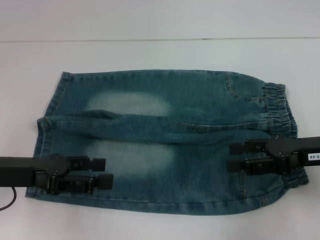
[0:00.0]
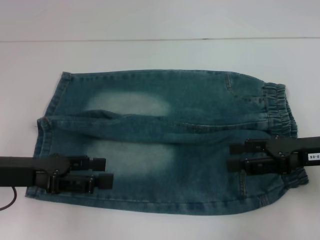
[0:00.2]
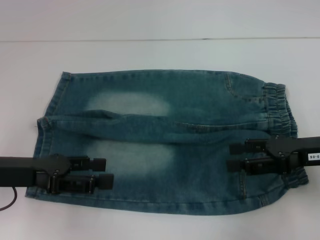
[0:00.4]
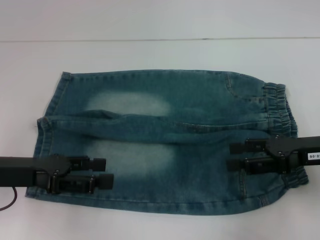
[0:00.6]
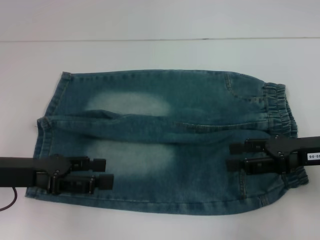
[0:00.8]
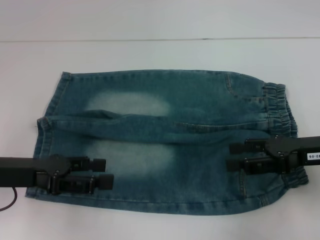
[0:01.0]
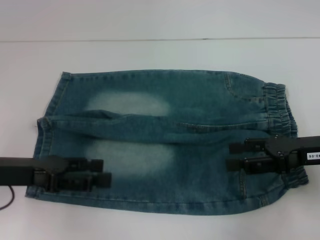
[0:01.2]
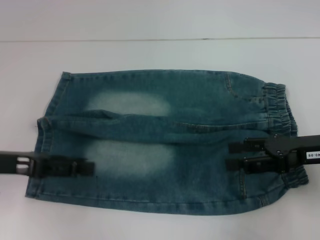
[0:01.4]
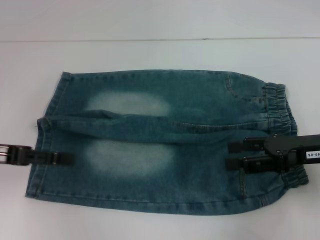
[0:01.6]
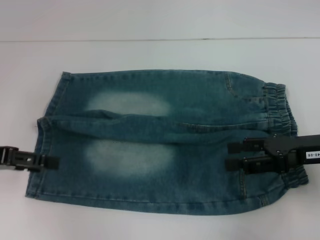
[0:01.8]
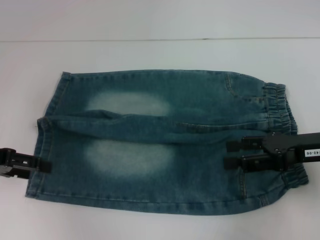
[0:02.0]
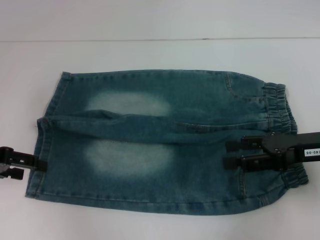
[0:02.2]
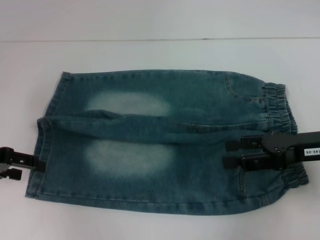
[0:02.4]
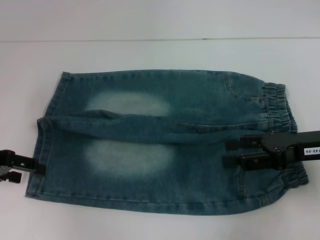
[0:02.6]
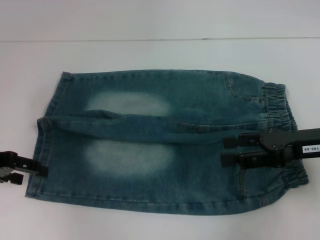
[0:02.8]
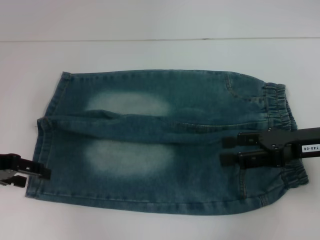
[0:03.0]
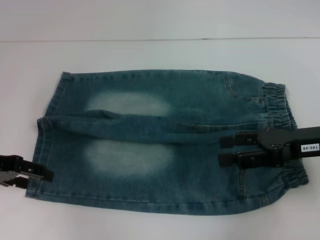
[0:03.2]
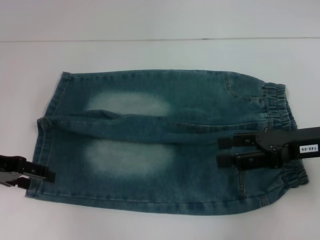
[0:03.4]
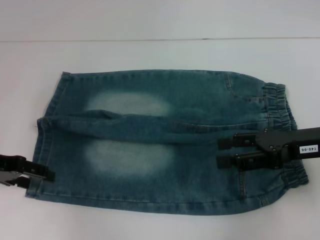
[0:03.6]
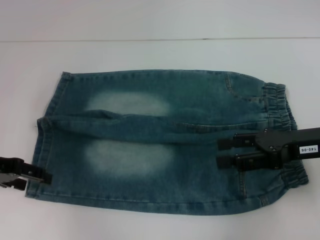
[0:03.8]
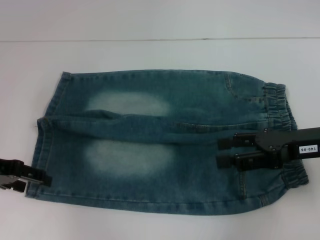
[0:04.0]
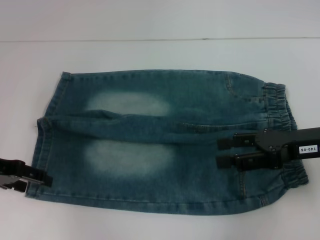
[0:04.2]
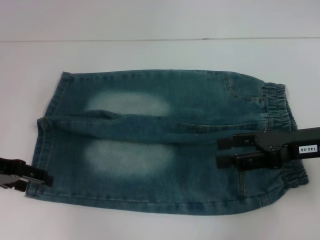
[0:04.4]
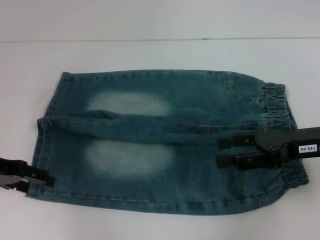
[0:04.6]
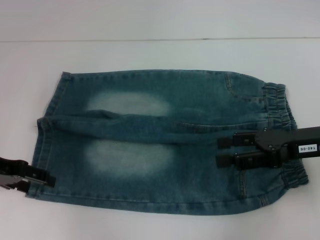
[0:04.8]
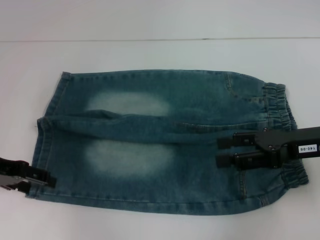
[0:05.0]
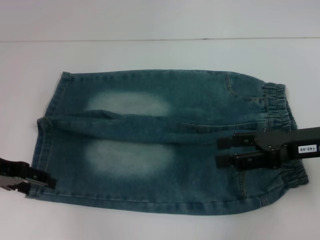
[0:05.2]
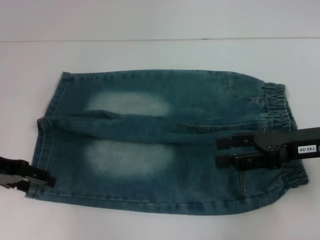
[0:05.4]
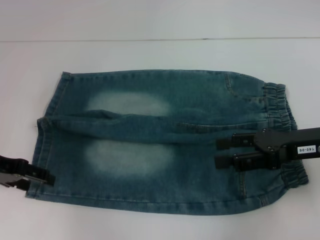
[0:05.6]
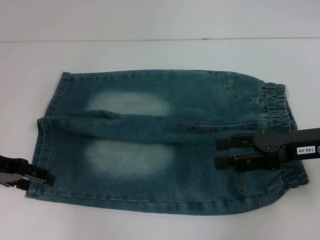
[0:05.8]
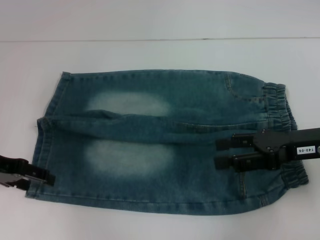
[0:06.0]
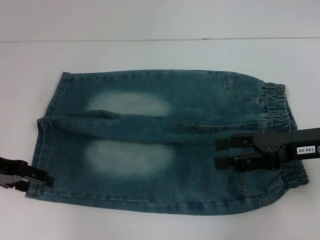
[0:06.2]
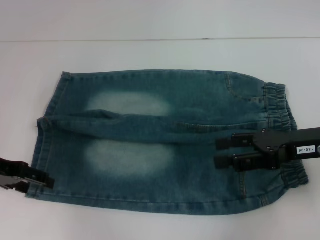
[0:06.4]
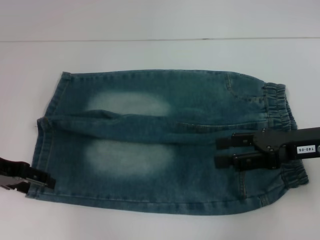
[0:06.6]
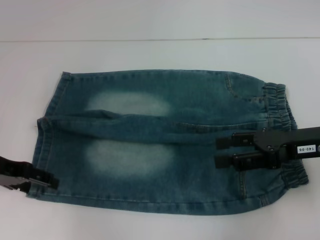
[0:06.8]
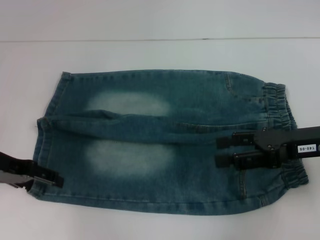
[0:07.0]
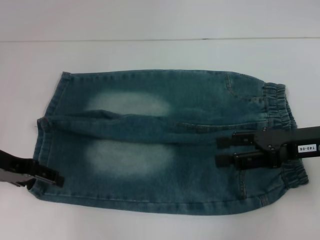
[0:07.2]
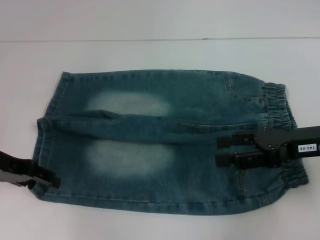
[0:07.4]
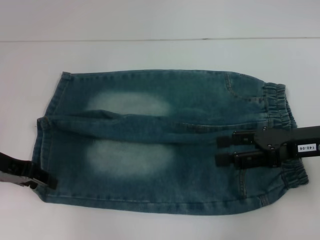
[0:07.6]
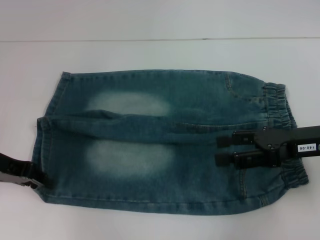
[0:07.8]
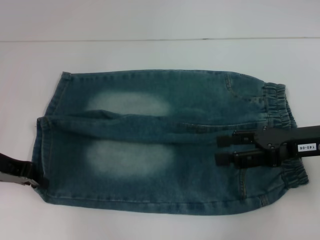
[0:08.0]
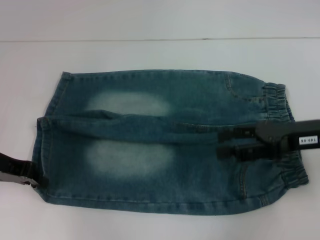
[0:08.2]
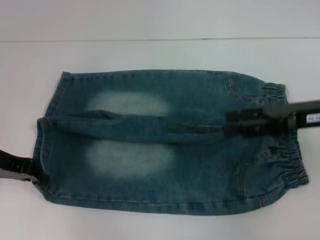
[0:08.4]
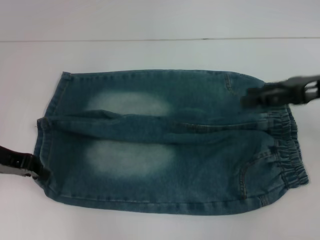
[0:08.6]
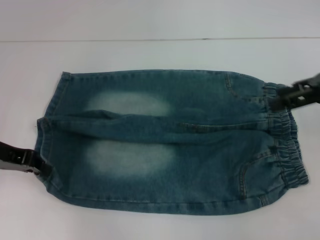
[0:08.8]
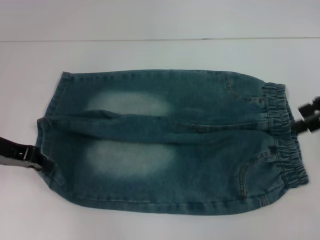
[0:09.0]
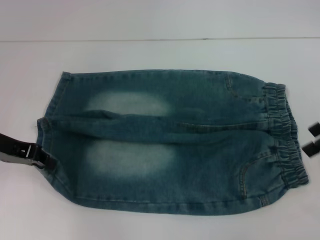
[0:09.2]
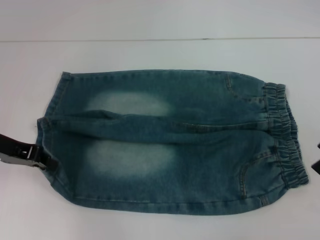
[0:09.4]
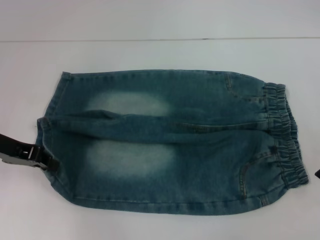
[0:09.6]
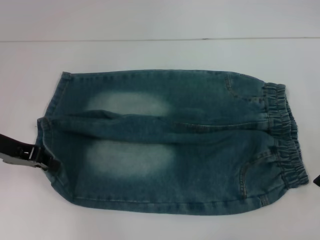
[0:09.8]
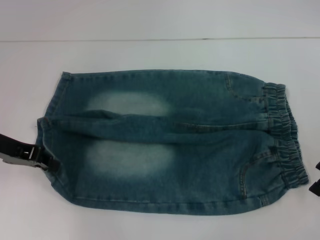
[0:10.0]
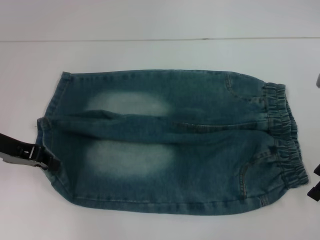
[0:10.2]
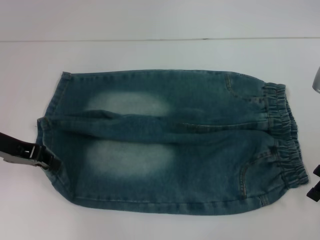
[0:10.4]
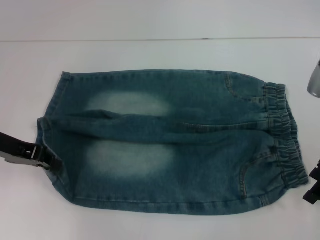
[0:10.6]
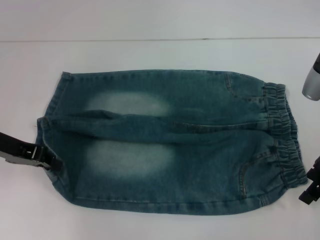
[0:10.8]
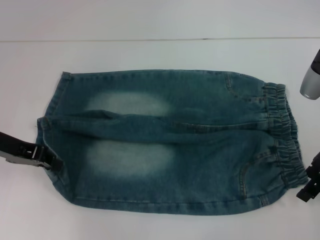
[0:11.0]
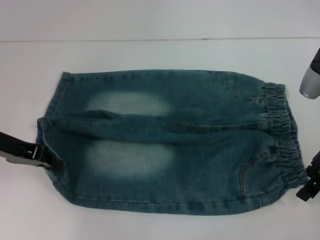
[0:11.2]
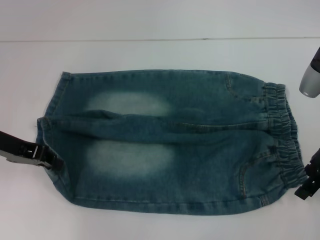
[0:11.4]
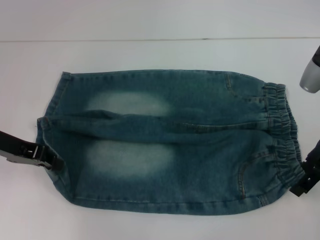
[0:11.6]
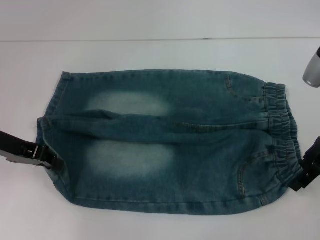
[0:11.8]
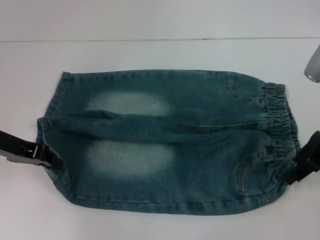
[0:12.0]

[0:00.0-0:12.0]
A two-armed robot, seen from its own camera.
Step, 0:00.0 to 0:07.6: Grab the lower left pant leg with your left hand.
Step, 0:07.8 to 0:11.6: Hold the lower right waistband with your right hand.
0:00.0 to 0:01.6: The left gripper ends up approximately 5 cm from where it was.
0:03.0 to 0:04.4: Neither gripper changes place.
0:04.4 to 0:06.0: The two grippers keep their place.
0:06.0 to 0:07.6: The grippers move only a little.
0:07.6 to 0:09.0: The right gripper heads upward, to the right and forward, covering roughly 15 cm. The left gripper closes up.
0:09.0 to 0:10.4: The right gripper is displaced downward by approximately 5 cm.
0:10.4 to 0:12.0: The grippers make only small movements.

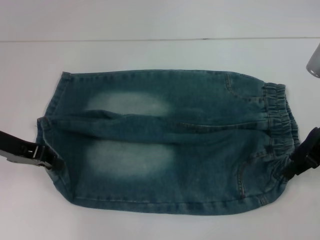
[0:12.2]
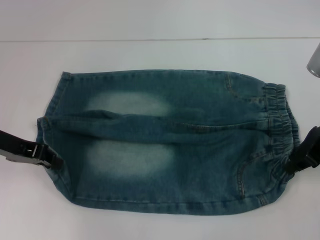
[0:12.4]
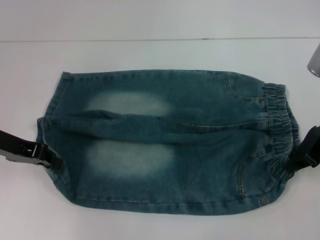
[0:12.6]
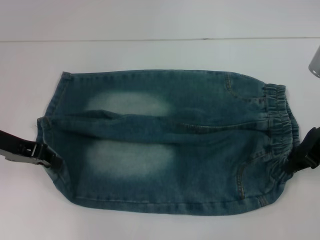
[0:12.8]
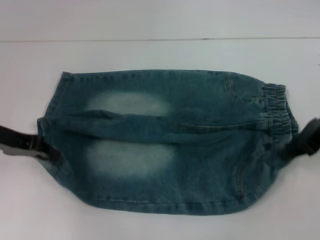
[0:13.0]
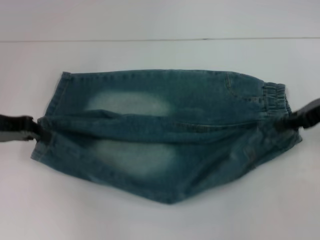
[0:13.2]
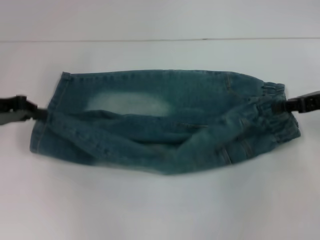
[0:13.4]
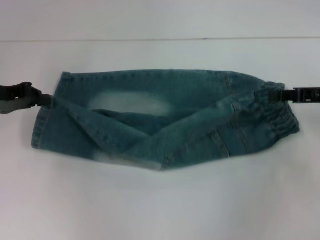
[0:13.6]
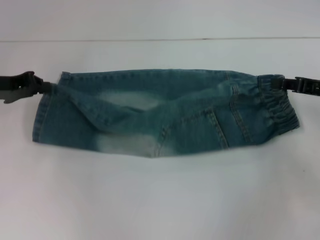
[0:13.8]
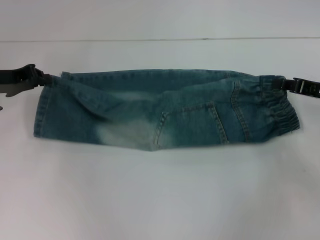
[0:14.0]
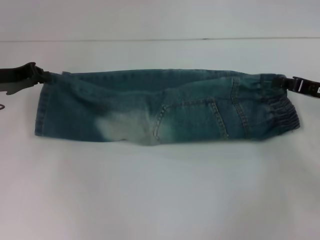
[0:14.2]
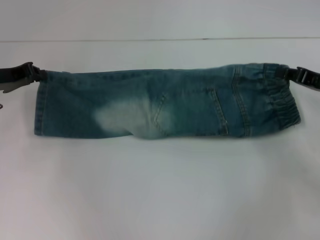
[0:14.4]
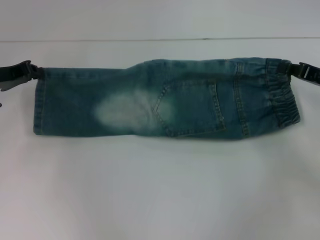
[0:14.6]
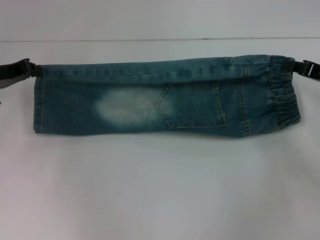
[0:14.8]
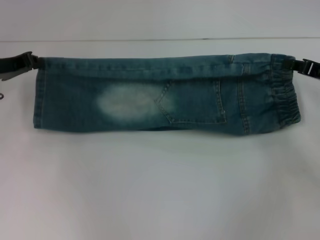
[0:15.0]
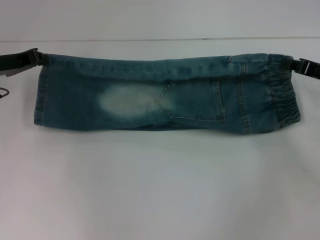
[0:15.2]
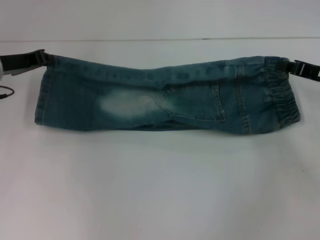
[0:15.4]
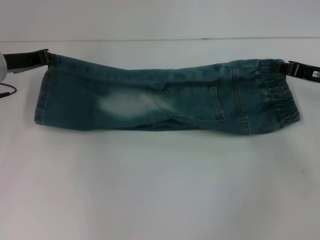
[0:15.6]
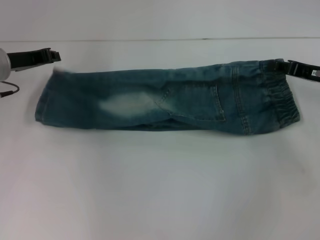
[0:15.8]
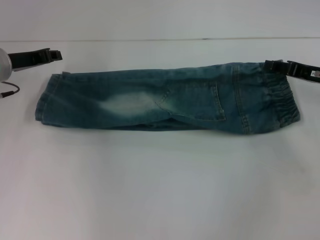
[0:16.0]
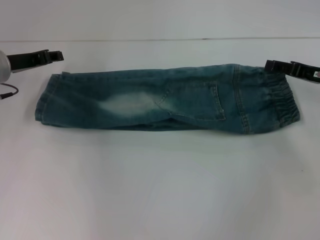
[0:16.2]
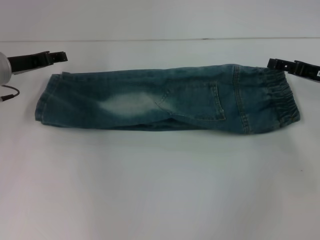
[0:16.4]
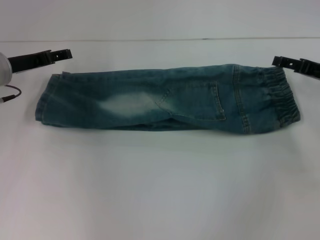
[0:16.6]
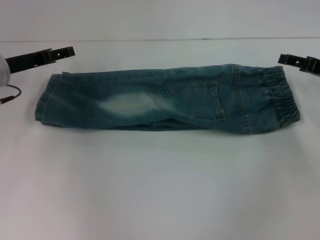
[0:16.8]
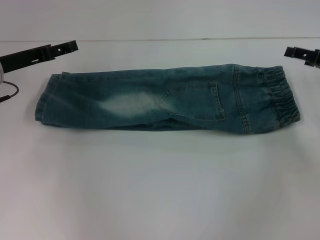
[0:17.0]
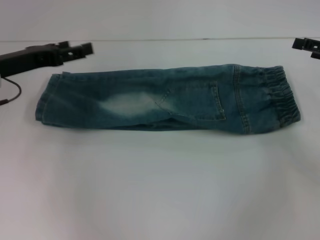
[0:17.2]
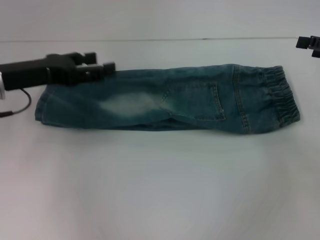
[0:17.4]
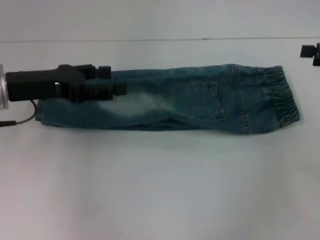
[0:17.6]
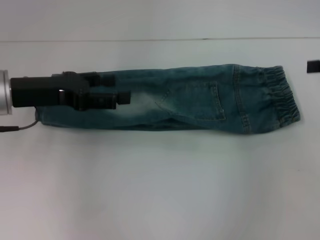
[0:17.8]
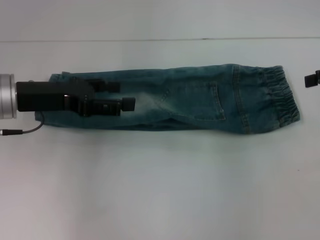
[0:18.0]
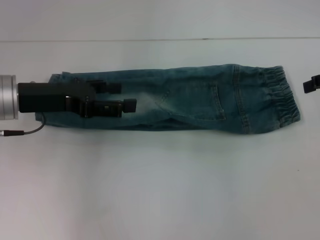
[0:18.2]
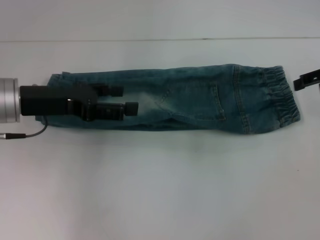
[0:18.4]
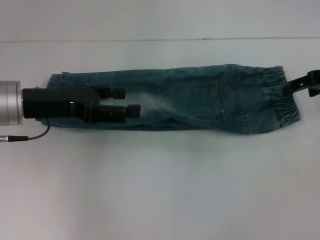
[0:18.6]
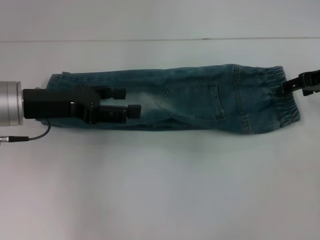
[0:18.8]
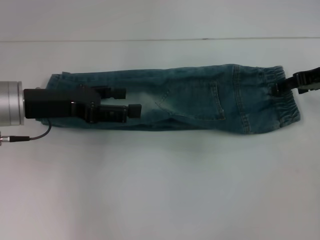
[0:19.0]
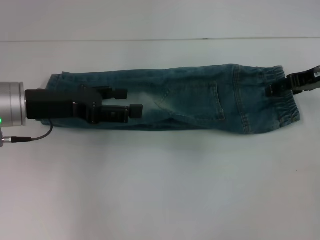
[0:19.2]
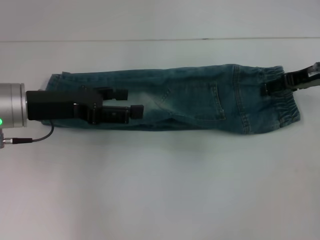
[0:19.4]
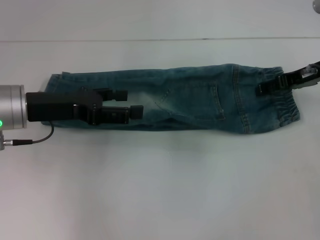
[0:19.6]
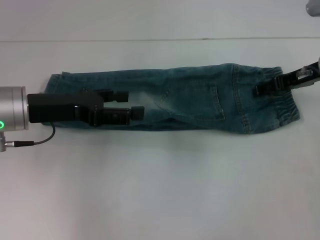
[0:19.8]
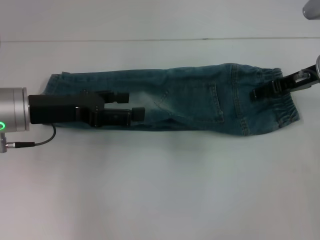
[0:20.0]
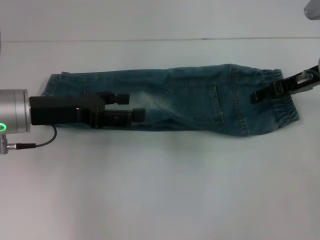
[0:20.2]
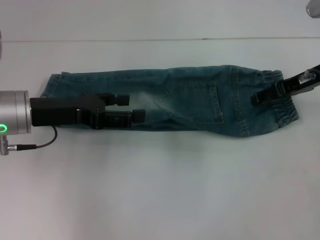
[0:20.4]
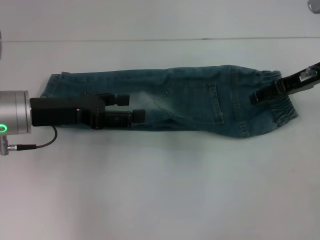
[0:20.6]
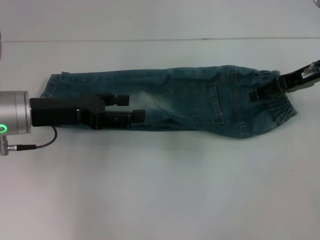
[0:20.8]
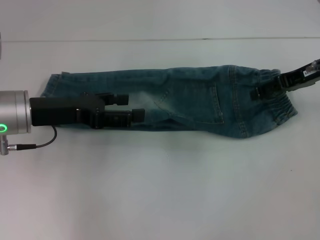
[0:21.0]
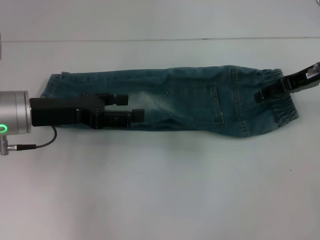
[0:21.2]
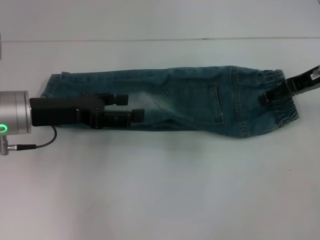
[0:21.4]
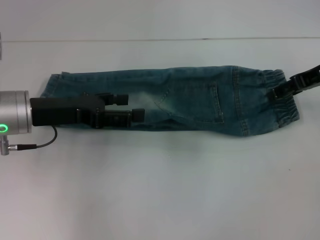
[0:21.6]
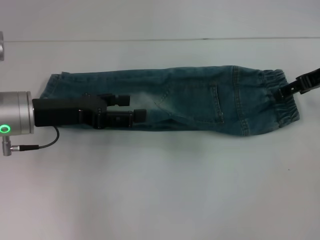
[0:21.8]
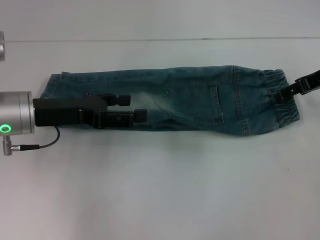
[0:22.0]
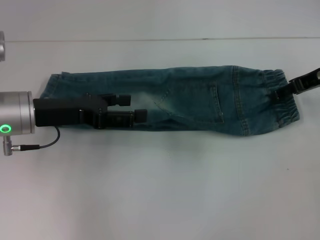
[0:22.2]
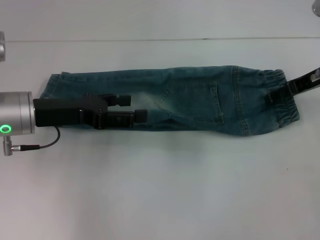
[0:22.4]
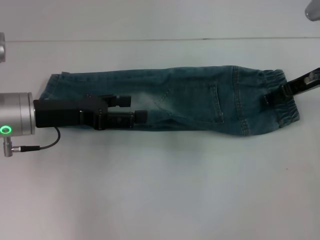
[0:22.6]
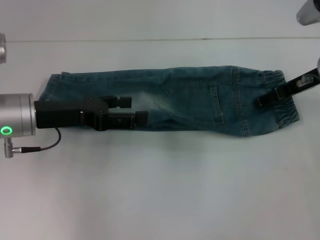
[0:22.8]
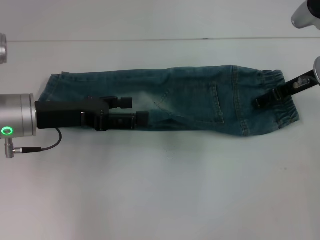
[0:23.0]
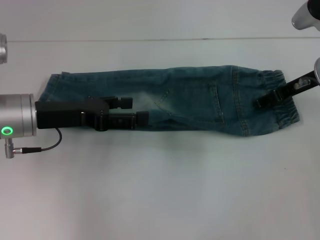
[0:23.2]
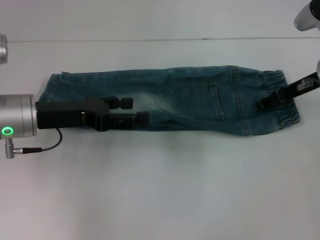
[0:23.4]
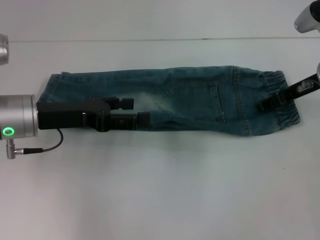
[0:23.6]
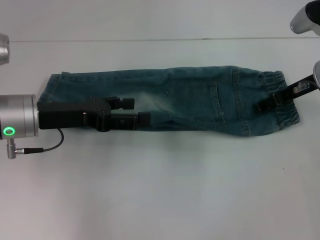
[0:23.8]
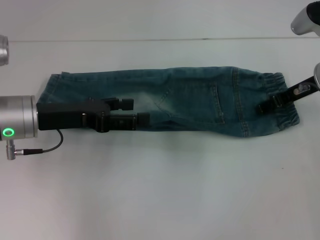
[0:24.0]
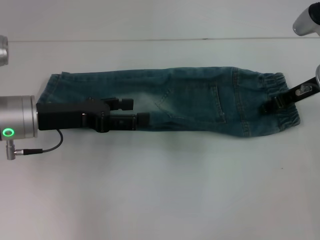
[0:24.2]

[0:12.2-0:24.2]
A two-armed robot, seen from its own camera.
Step, 0:12.2 to 0:16.2: Fold upward with your right hand.
Step, 0:16.4 to 0:24.0: Grab the waistband with your right hand.
0:12.2 to 0:13.8: The left gripper ends up roughly 5 cm from where it was. The right gripper travels to the right by about 5 cm, and closes its fingers.
0:13.8 to 0:15.2: There are only small adjustments of the grippers.
0:15.2 to 0:16.6: The left gripper opens up, while the right gripper opens up.
0:16.6 to 0:18.2: The left gripper is displaced backward by approximately 5 cm. Meanwhile the right gripper goes roughly 10 cm upward.
0:18.2 to 0:19.8: The right gripper heads to the left and downward, covering approximately 10 cm.
0:19.8 to 0:24.2: The grippers stay close to where they were, moving slightly.
